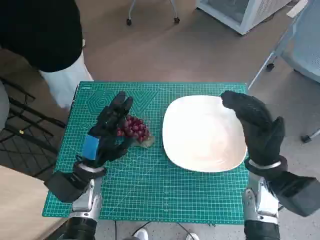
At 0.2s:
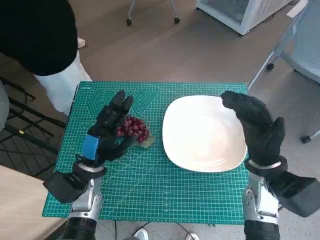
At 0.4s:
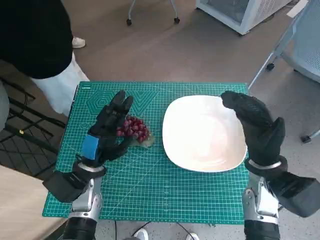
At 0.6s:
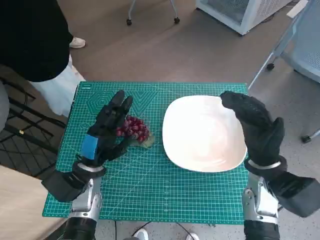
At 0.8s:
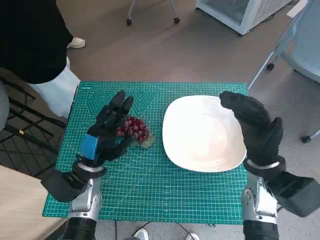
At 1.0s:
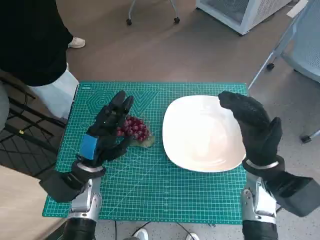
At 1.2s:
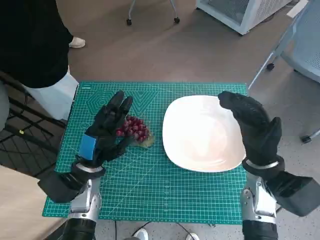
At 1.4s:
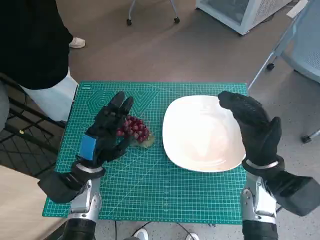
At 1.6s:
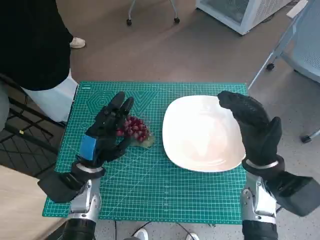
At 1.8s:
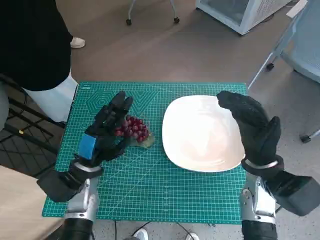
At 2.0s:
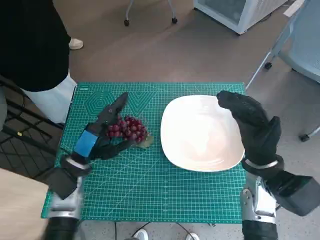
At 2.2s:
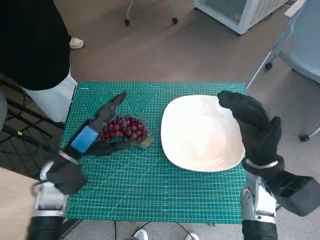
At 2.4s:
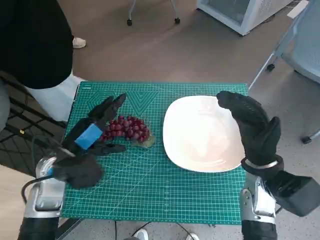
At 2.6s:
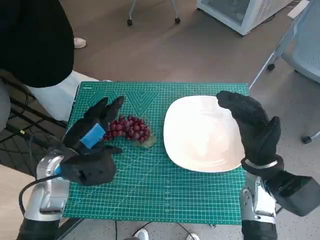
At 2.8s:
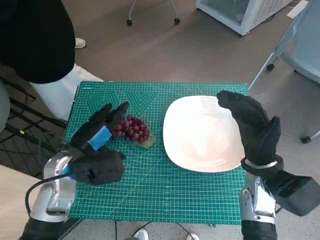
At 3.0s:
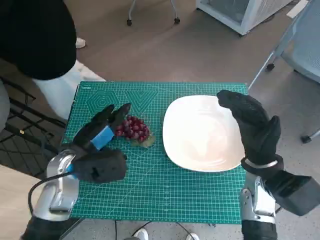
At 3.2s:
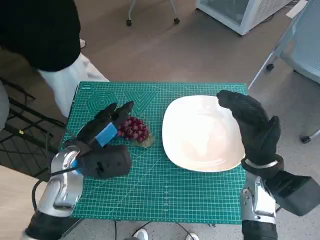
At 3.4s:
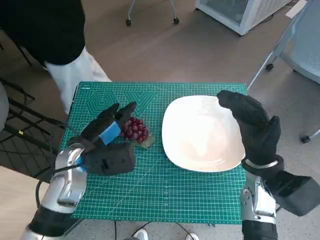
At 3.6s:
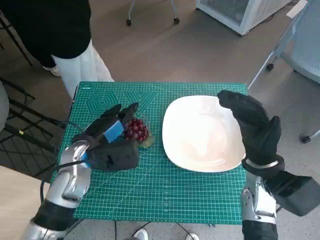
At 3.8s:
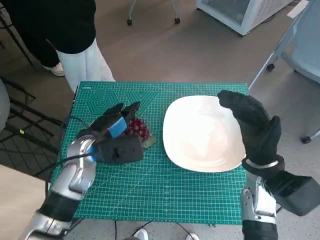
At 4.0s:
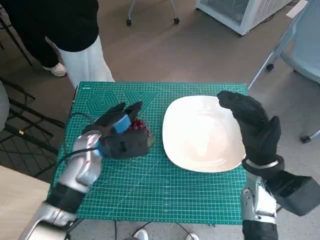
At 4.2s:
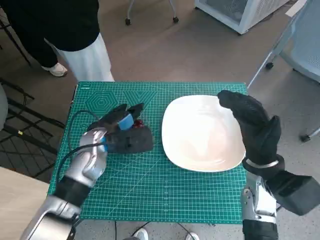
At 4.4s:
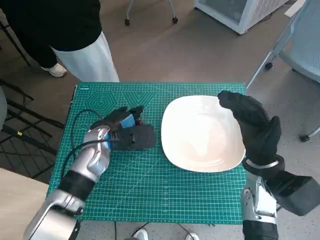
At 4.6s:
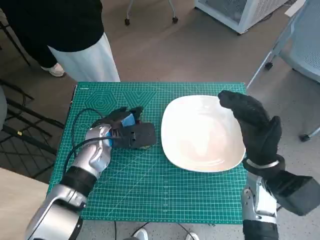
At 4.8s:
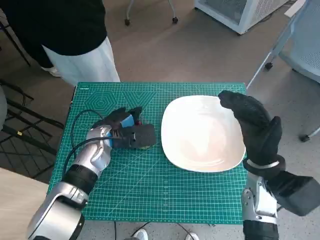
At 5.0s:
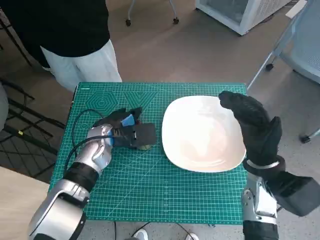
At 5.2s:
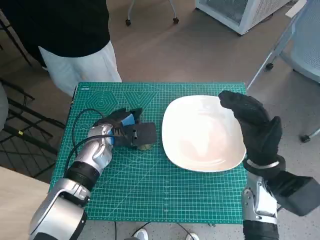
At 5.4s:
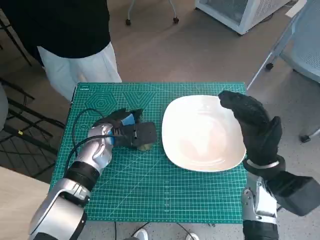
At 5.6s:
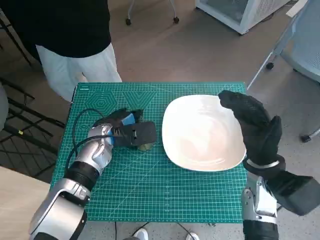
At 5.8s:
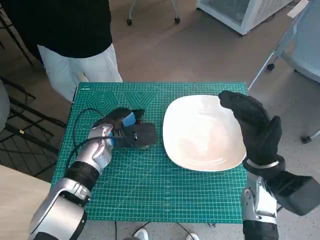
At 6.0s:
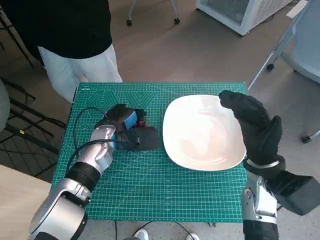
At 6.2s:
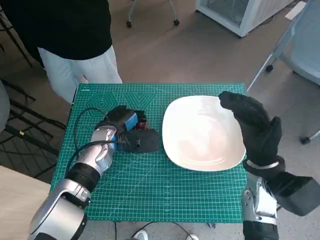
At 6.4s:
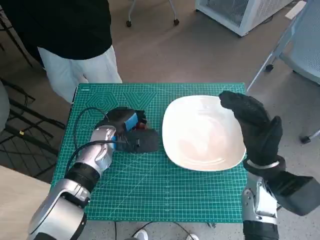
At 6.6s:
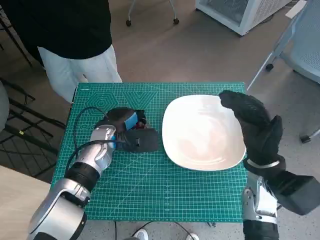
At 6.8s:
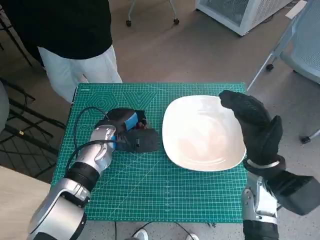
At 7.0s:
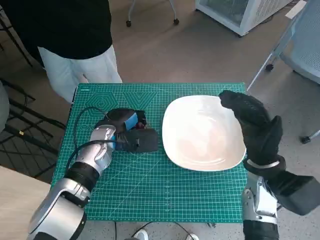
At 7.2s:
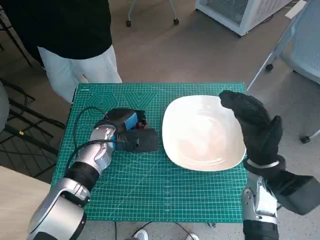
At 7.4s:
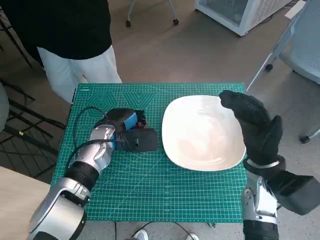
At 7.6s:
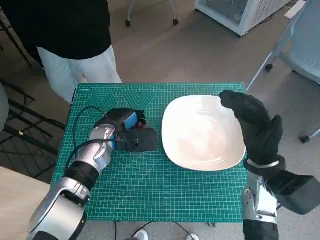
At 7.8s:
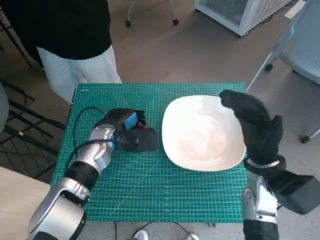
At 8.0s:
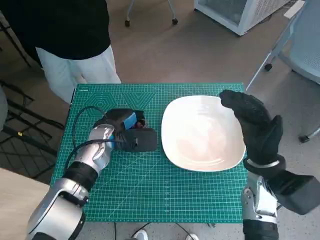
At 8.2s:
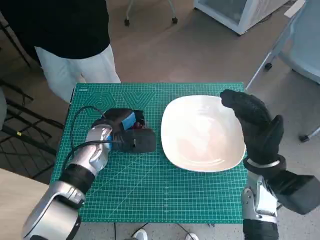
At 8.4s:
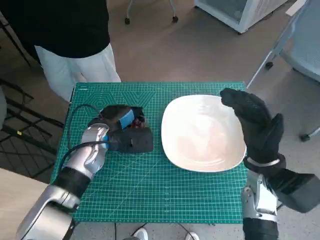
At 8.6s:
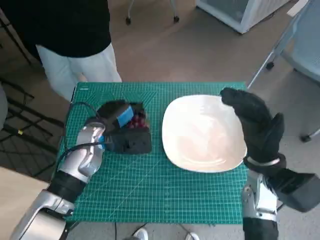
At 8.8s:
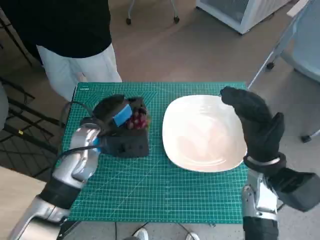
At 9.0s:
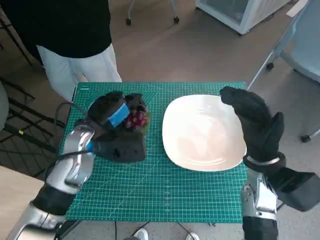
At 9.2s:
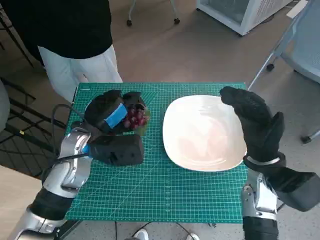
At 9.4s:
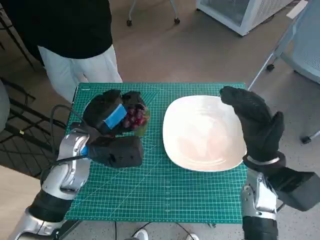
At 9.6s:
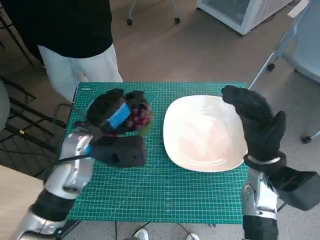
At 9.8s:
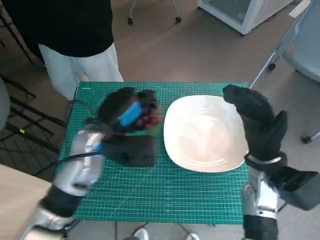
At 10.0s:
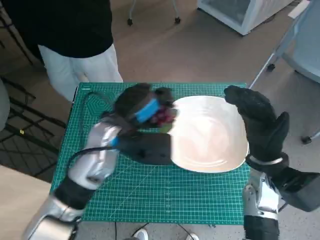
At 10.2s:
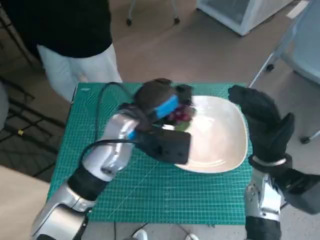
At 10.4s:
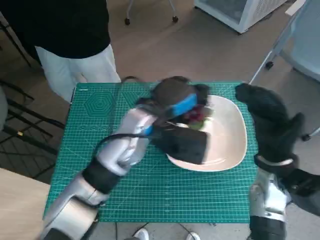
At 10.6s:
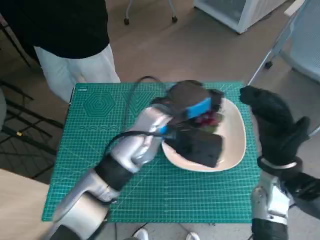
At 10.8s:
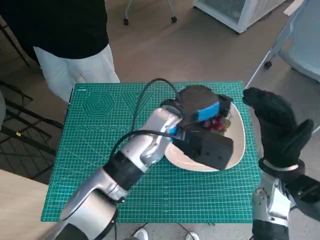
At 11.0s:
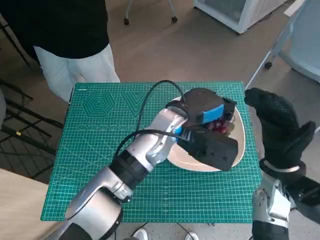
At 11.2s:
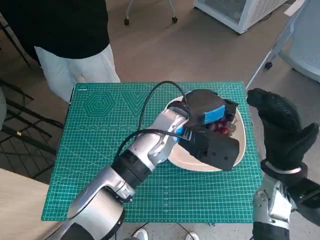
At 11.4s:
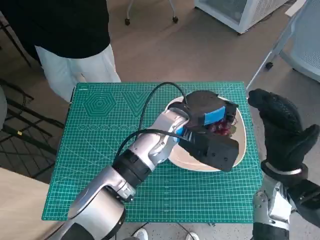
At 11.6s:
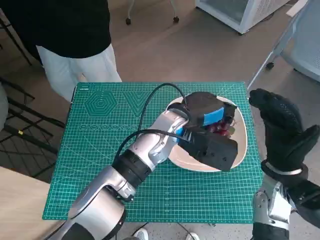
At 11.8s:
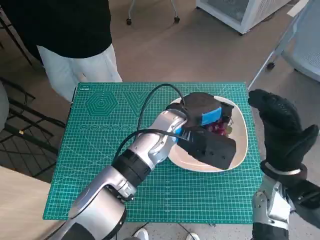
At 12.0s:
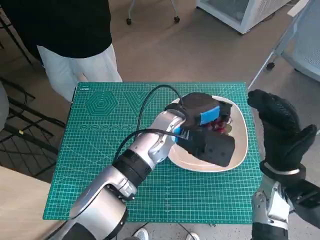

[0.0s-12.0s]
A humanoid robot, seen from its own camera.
Task of the whole recording: Pick up the grapes and put them on the plate.
Step, 0.0s to 6.0s: Grasp the grapes with left hand.
1.6s to 3.0s: The left hand moves upward, some 5 cm.
3.0s to 4.4s: The left hand heads forward, covering about 5 cm.
4.4s to 6.0s: There are only small adjustments of the hands.
6.0s to 7.6s: The two hands keep their place.
7.6s to 9.0s: The left hand travels upward by about 5 cm.
9.0s to 10.4s: The left hand travels to the right by about 10 cm.
10.4s to 12.0s: The left hand travels to the right by approximately 5 cm.

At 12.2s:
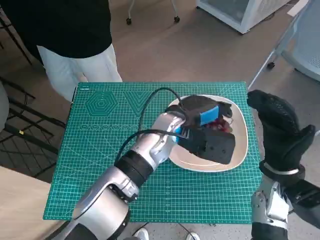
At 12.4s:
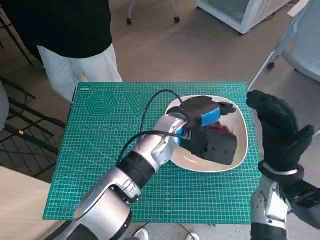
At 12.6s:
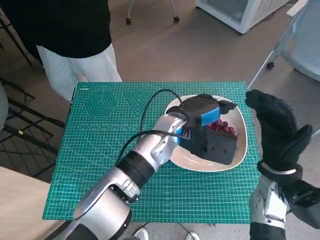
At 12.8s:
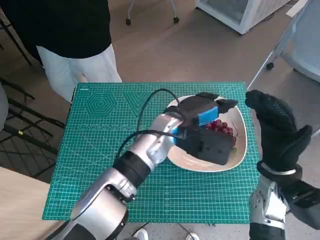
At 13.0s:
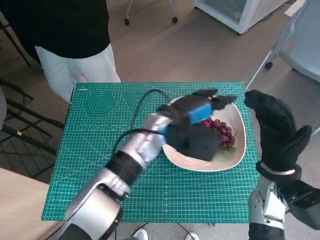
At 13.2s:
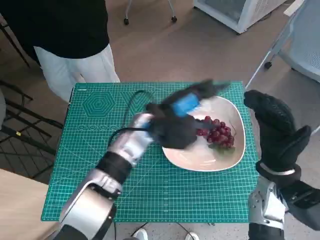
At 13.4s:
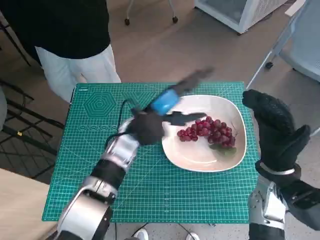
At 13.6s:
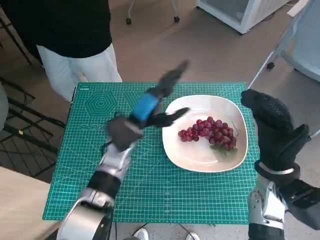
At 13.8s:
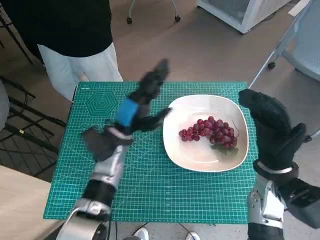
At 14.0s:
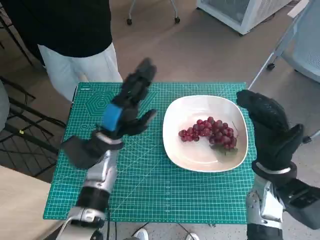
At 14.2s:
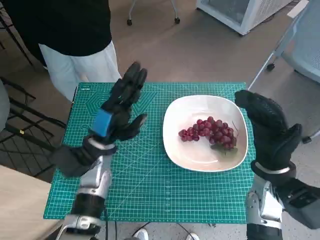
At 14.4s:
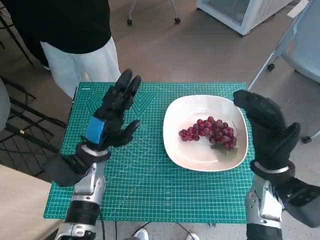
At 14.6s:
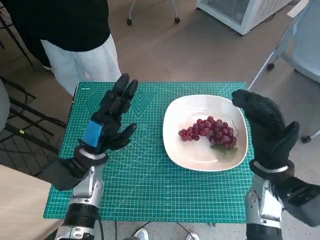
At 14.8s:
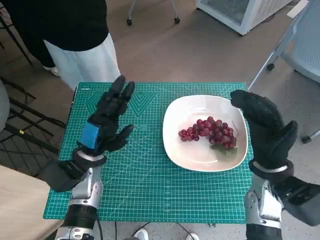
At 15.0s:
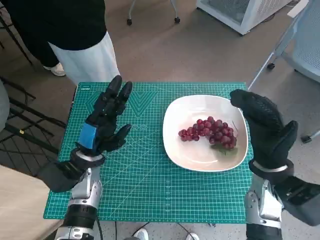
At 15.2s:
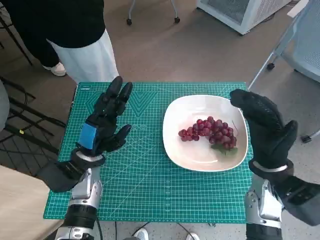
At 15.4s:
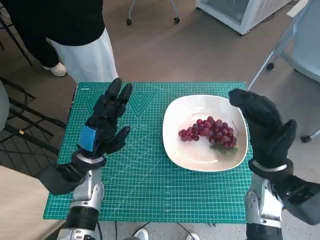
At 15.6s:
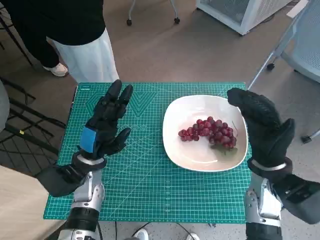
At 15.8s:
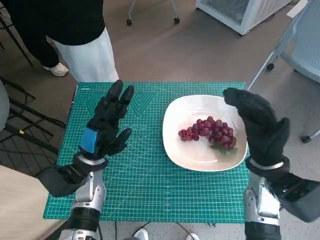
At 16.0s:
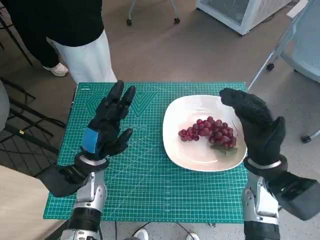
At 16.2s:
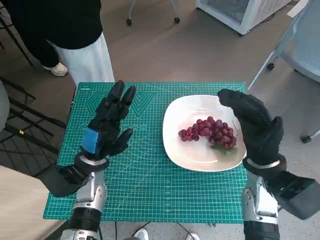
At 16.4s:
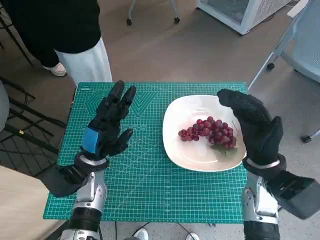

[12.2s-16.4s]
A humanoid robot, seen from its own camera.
Task of the whole recording: Pick up the grapes and put them on the plate.
12.2s to 13.6s: The left hand goes roughly 10 cm to the left.
13.6s to 15.0s: The left hand travels to the left and backward by some 10 cm.
15.0s to 16.4s: Neither hand changes place.

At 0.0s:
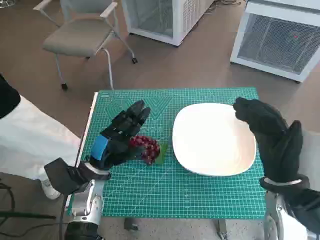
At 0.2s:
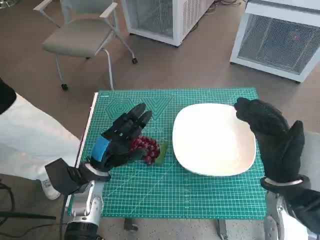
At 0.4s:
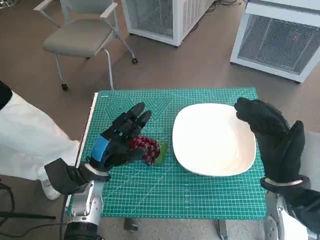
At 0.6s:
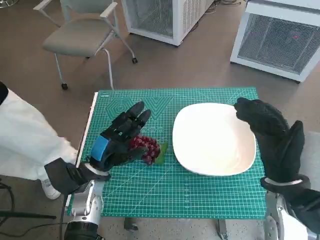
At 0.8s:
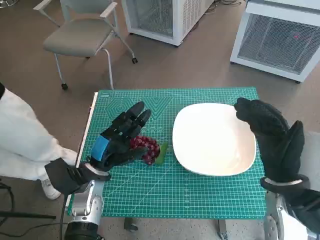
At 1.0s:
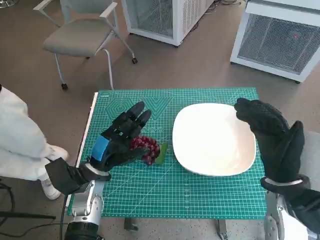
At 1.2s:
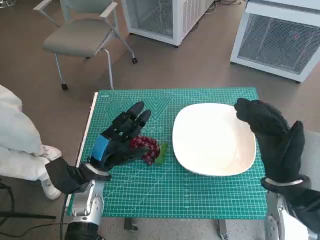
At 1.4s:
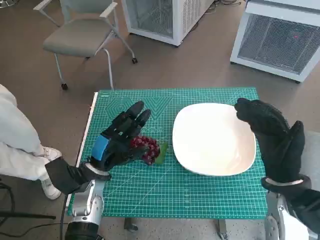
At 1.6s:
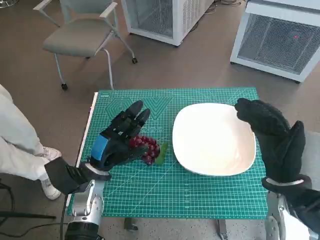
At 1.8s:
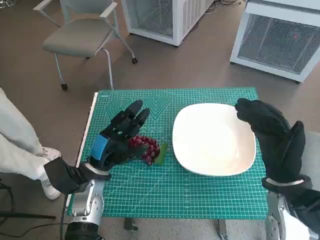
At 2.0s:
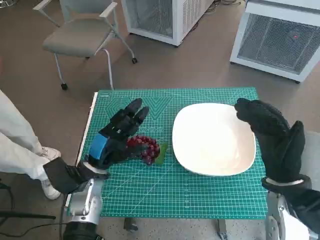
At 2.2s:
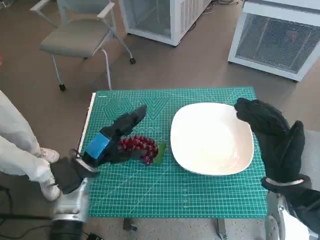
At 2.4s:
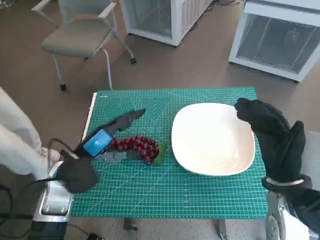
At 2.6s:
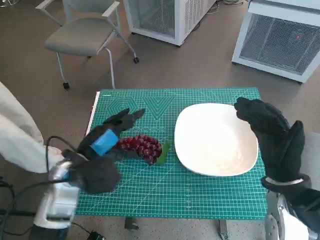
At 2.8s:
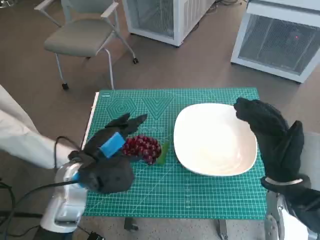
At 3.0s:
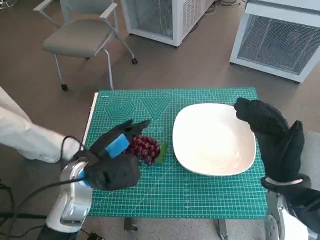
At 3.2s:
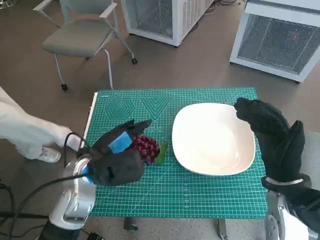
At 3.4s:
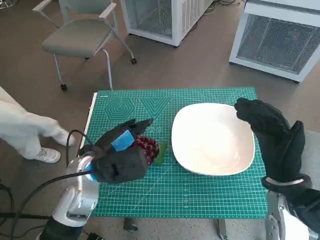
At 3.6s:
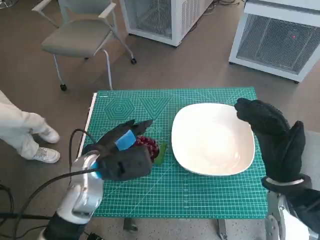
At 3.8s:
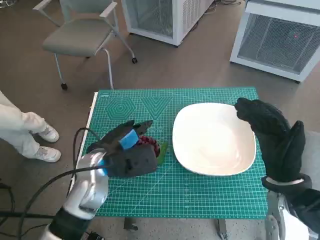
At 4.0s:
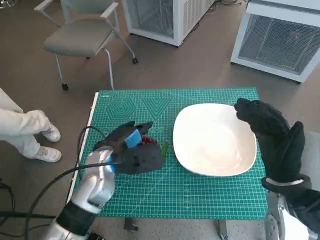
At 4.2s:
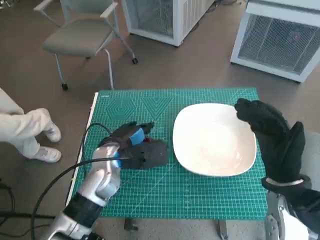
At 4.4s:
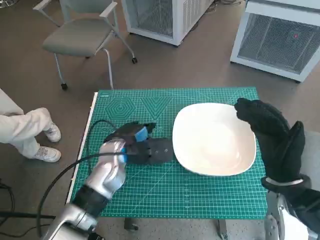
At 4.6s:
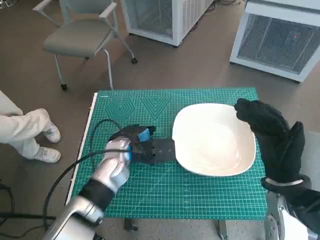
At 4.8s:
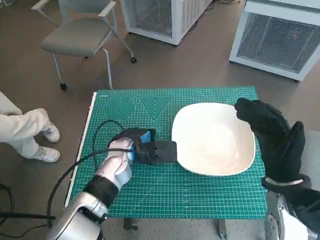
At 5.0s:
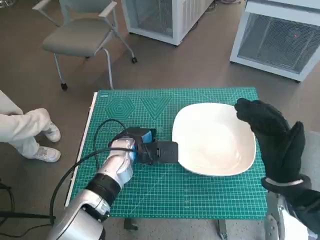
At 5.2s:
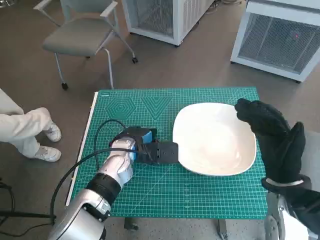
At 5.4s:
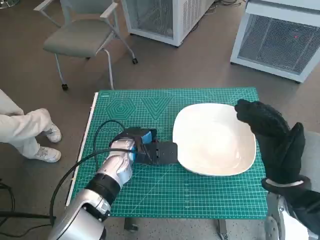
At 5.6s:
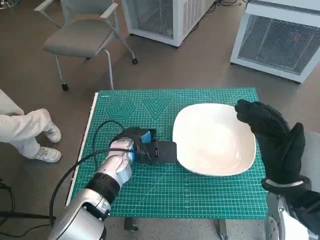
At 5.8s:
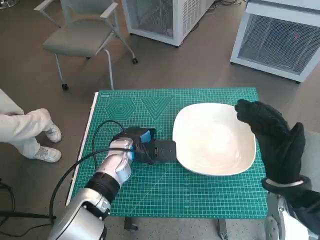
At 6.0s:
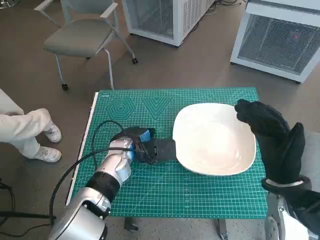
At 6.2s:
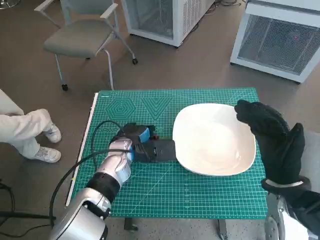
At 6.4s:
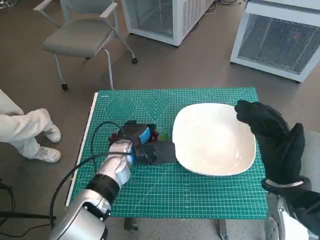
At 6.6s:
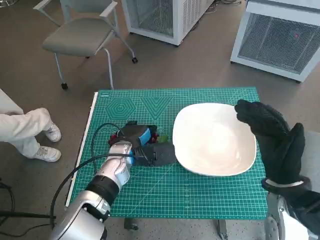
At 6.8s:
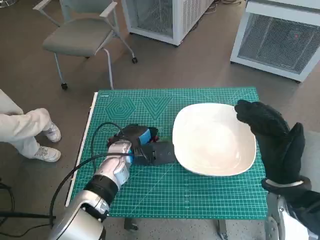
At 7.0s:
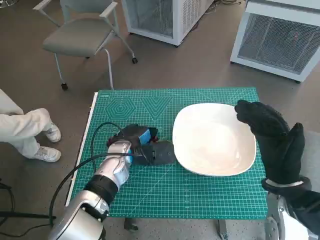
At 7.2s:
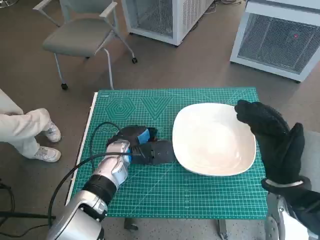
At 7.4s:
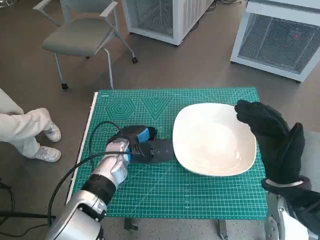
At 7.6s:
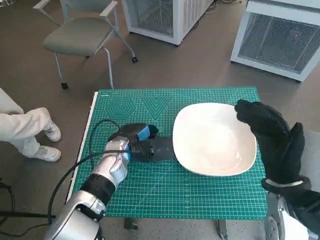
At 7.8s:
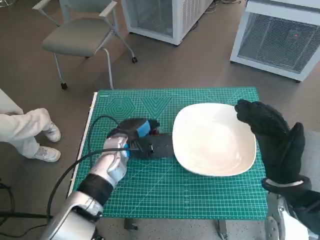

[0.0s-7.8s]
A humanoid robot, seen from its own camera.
Task of the whole recording: Pick up the grapes and put them on the plate.
Step, 0.0s to 7.4s: Grasp the grapes with left hand.
1.6s to 3.2s: The left hand moves upward, approximately 5 cm.
3.2s to 4.6s: The left hand goes some 5 cm forward.
4.6s to 7.8s: There are only small adjustments of the hands.
